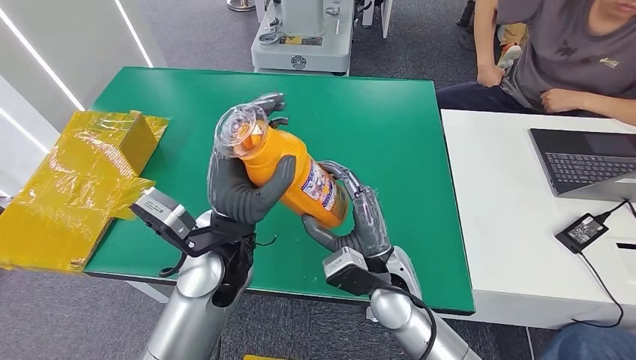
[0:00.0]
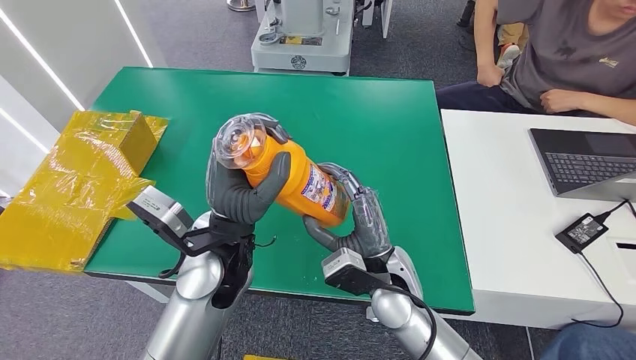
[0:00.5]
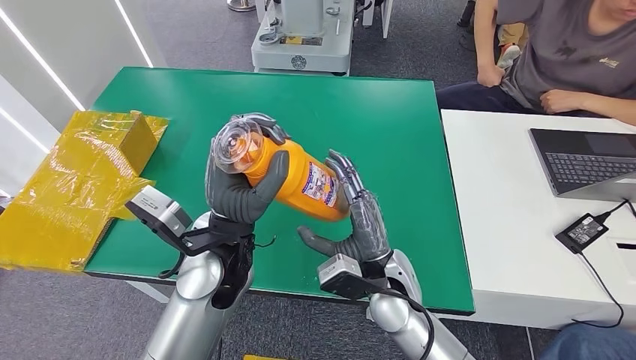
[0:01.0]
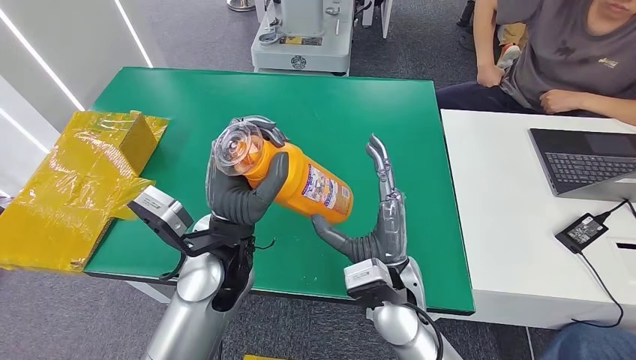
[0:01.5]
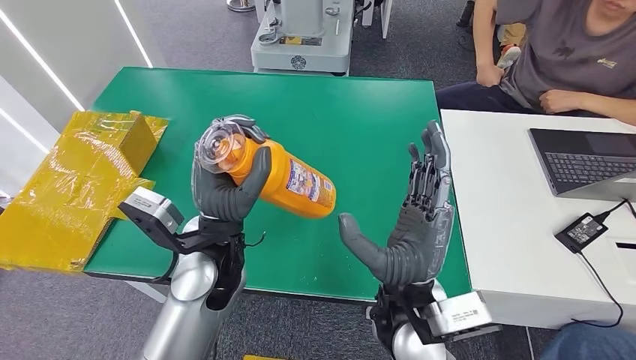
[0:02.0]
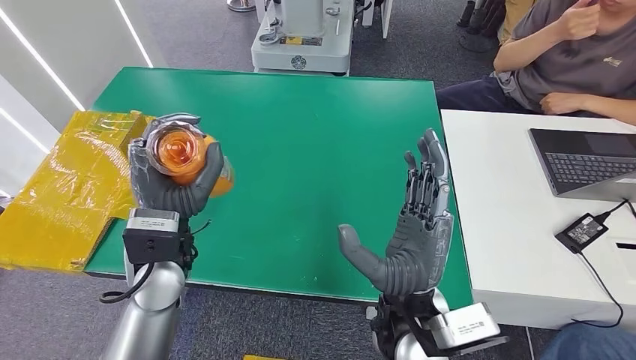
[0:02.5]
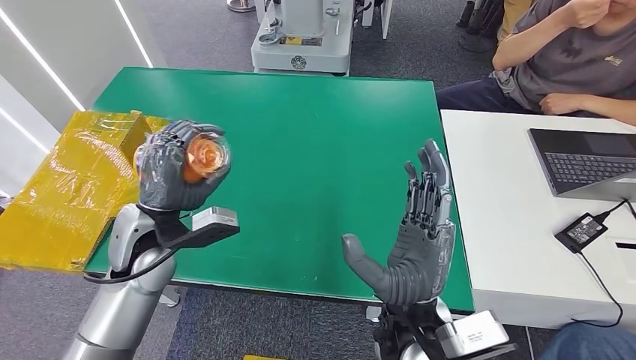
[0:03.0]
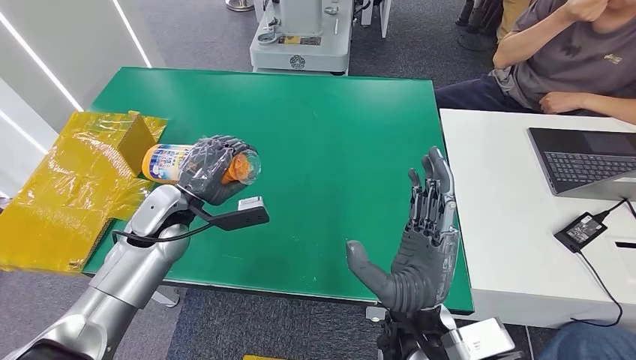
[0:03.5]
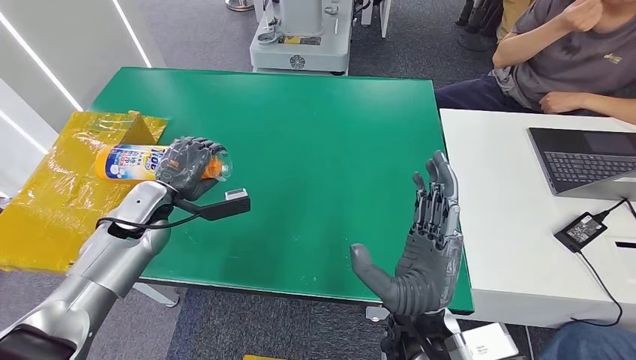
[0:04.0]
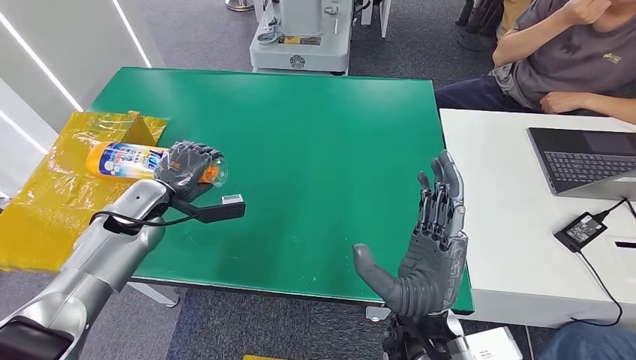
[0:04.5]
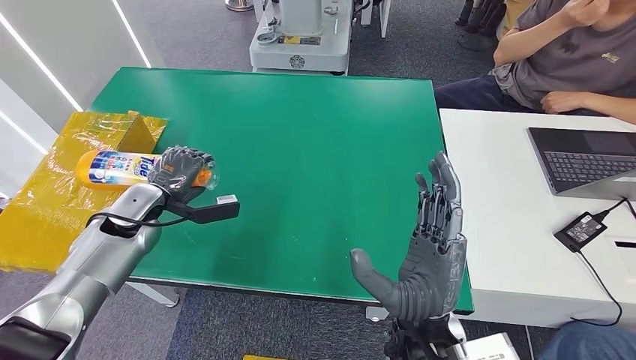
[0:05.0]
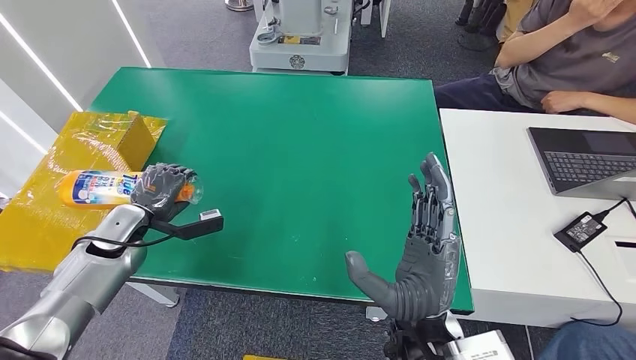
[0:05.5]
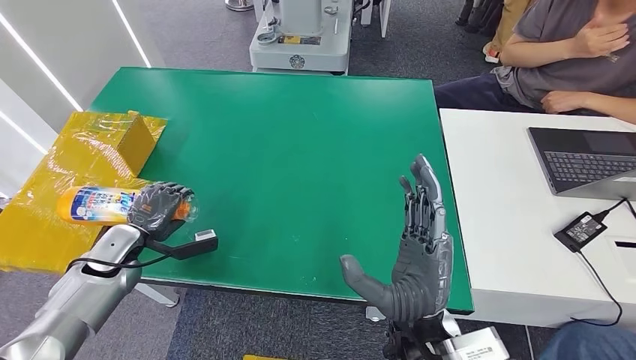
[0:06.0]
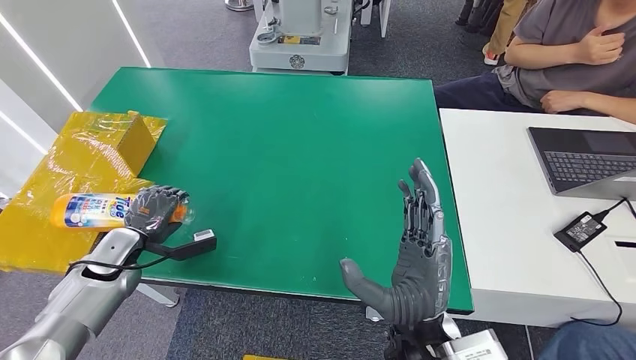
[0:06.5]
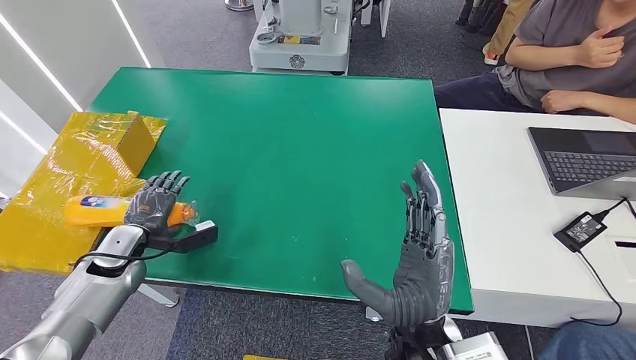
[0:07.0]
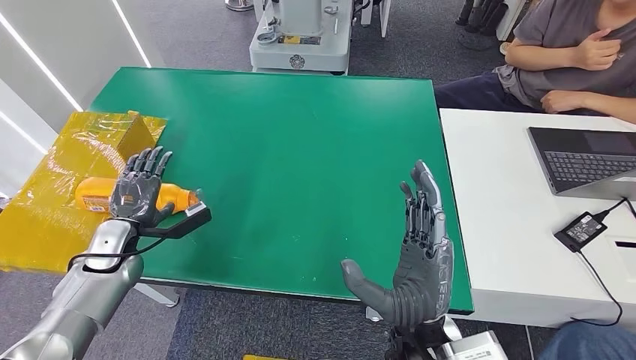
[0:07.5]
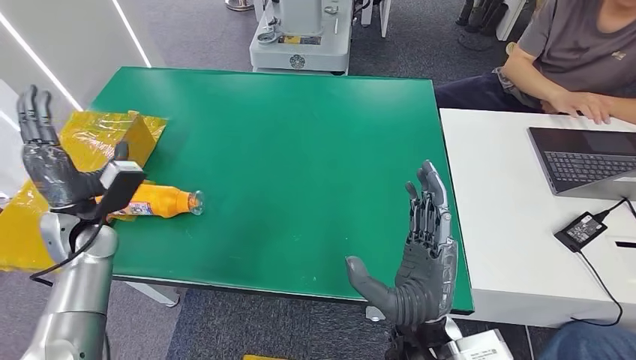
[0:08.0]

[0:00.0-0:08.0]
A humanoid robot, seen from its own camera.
Step, 0:00.0 to 0:07.5: Turn the bottle to the front side.
0:00.0 to 0:02.0: The right hand is displaced upward by about 10 cm.
0:04.0 to 0:06.0: The left hand is displaced to the left, backward and downward by approximately 15 cm.
0:06.0 to 0:08.0: The left hand goes approximately 10 cm to the right.
